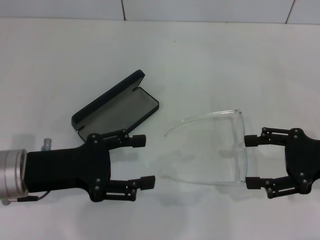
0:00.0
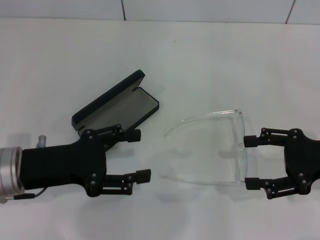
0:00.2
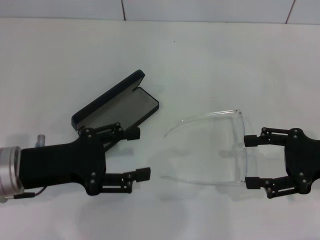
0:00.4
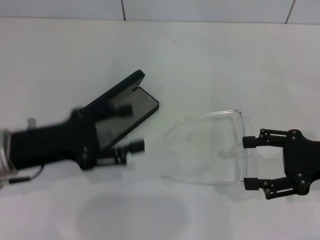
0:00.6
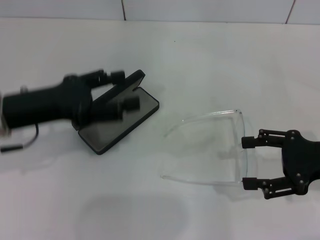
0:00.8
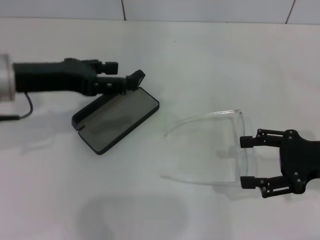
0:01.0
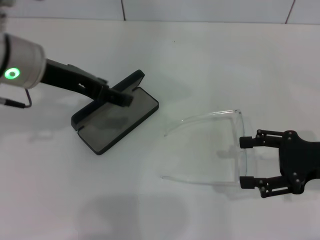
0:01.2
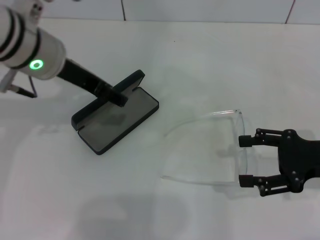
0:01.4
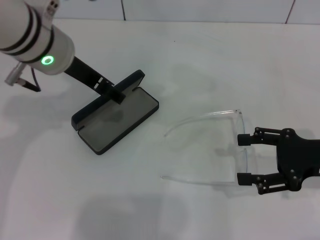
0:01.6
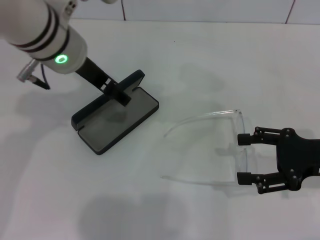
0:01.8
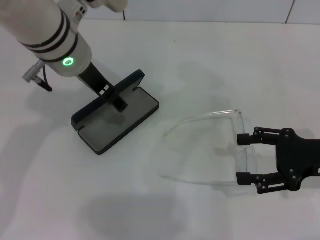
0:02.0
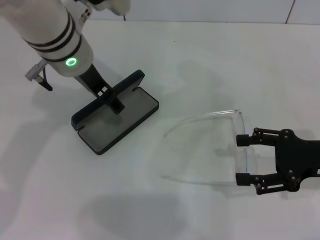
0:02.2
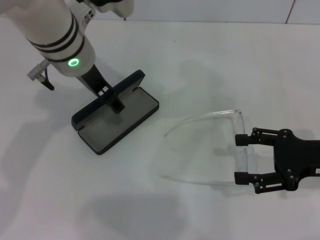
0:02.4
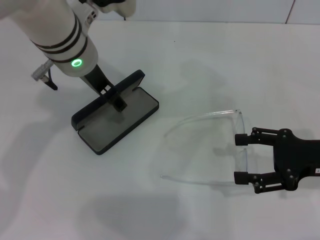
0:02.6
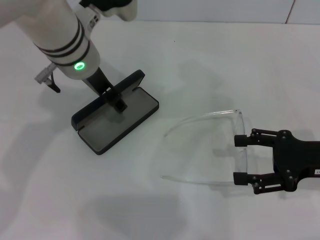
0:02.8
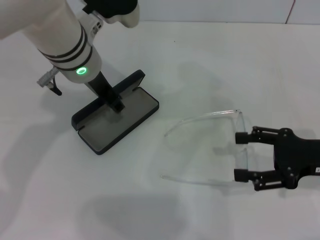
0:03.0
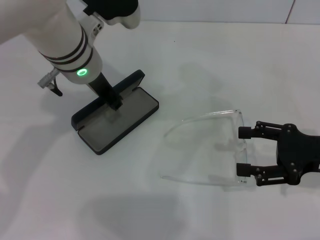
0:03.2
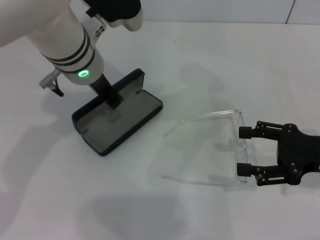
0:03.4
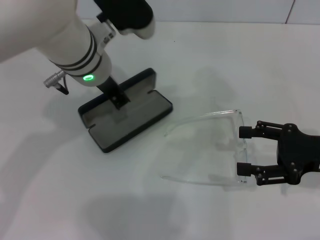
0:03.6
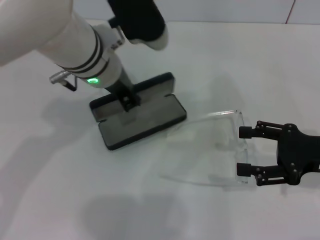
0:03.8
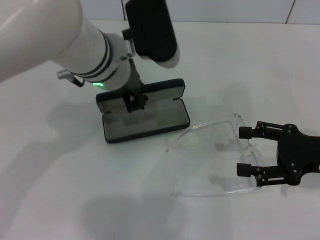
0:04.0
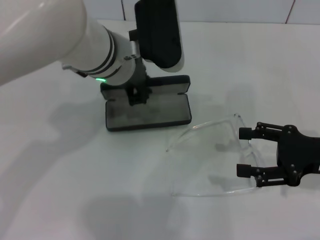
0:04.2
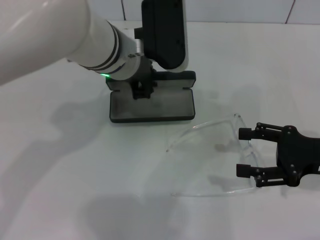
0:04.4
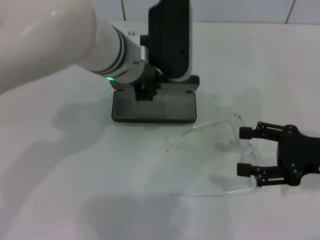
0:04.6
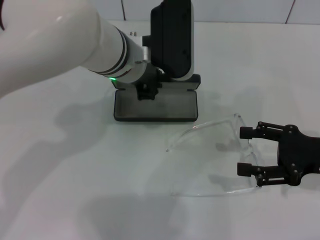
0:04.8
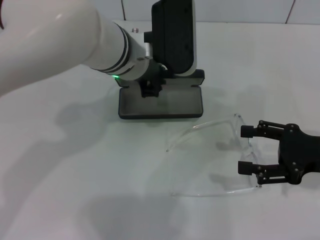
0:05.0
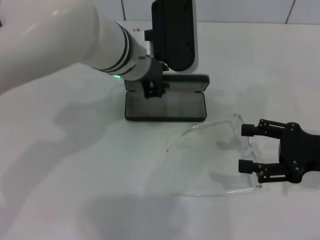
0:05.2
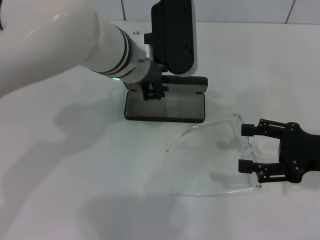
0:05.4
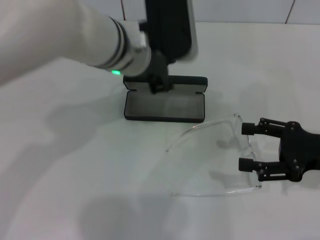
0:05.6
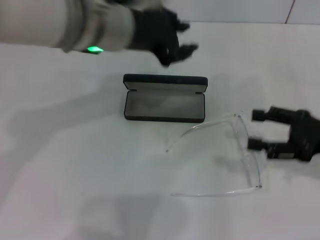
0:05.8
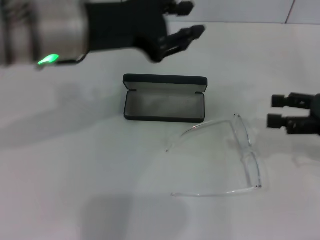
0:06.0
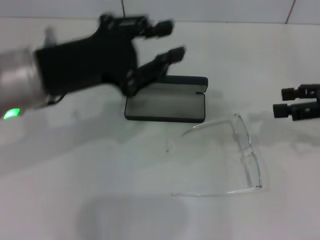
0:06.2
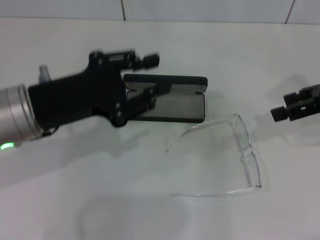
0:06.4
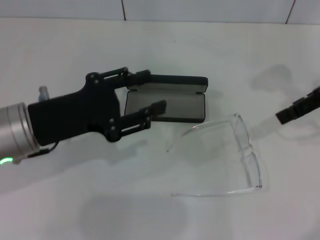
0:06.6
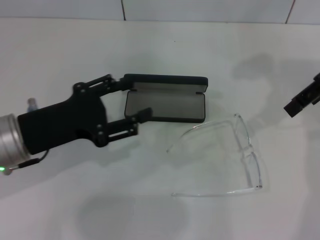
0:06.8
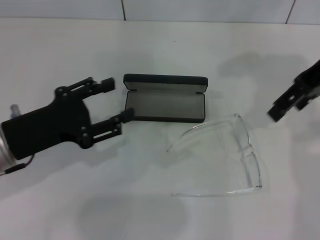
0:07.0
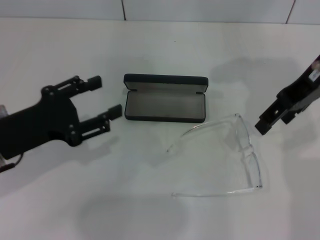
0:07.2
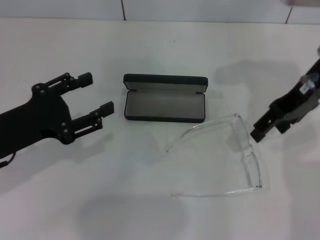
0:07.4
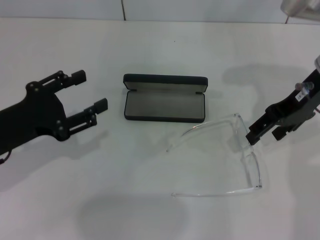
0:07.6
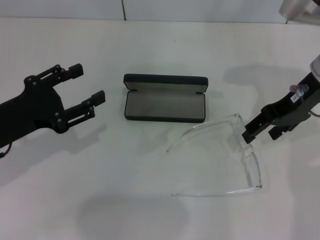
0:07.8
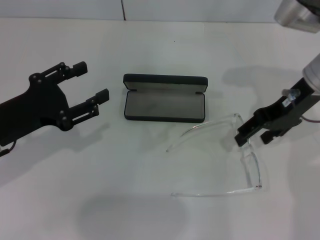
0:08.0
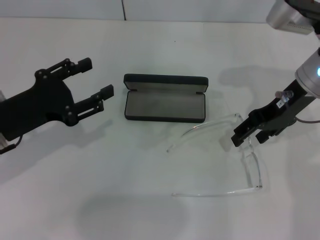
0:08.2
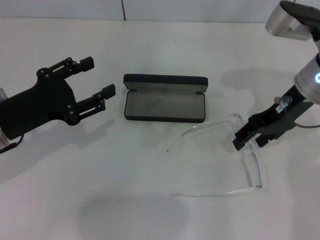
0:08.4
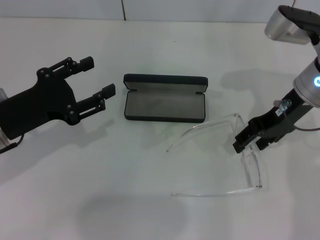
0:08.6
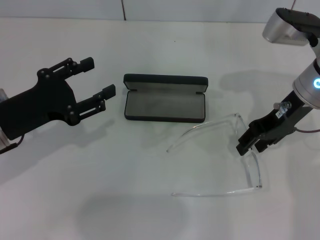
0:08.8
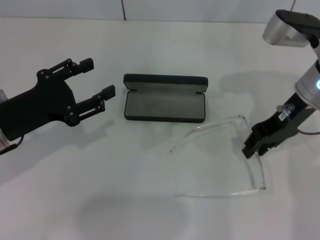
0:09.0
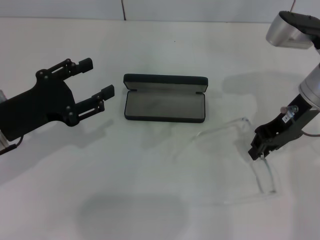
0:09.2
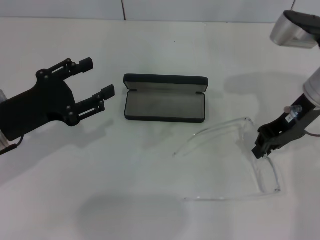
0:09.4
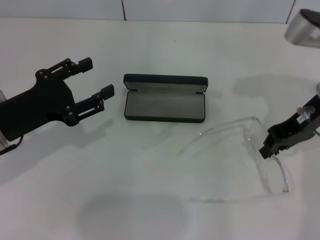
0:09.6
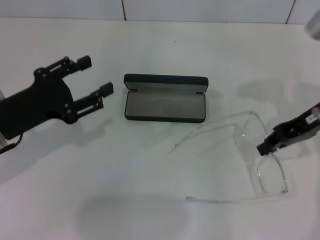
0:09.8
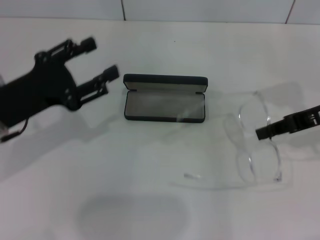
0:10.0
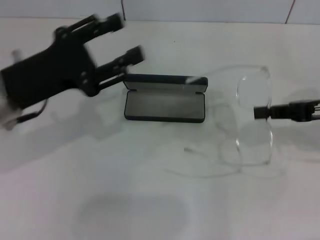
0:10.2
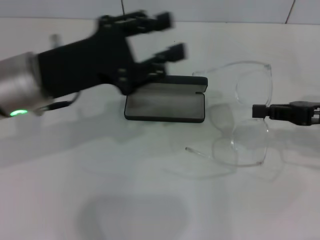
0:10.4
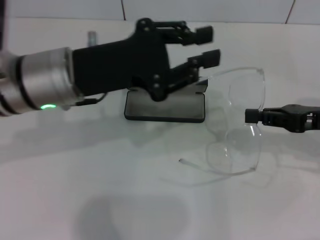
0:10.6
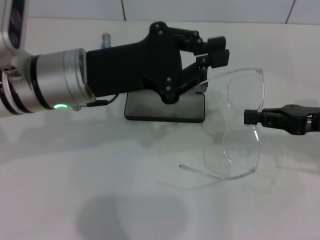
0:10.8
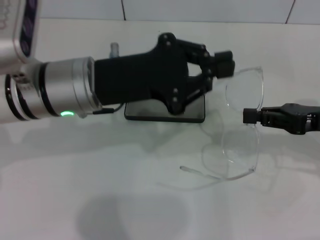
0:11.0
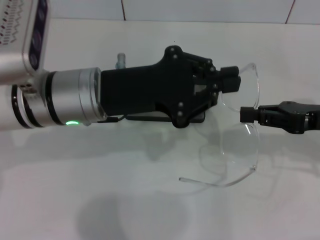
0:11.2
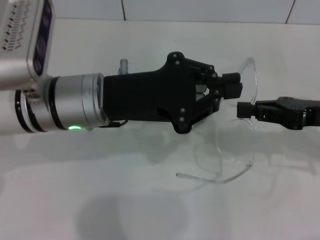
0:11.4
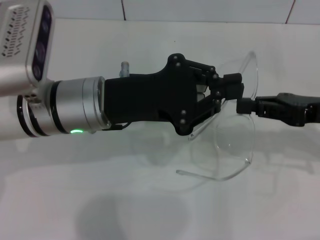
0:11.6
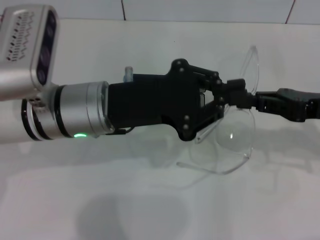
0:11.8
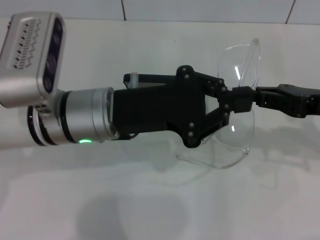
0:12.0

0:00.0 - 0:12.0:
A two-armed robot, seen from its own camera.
Step, 0:00.0 - 0:03.4: Grab the glasses case with your left hand.
Step, 0:03.6 - 0:05.4: Place the glasses case in the center of the table with your left hand.
Step, 0:05.6 - 0:09.0: Grab the eyeglass frame with your right hand.
0:00.0 - 0:01.6: The left gripper is displaced forward, upward and to the right by roughly 20 cm.
0:01.6 - 0:03.0: The left gripper changes place by roughly 5 cm.
0:03.0 - 0:04.4: The left gripper closes.
0:04.4 - 0:06.0: The left gripper moves to the left and upward, some 10 cm, while the right gripper moves approximately 5 cm.
0:06.0 - 0:07.6: The right gripper is displaced to the left, forward and upward by some 15 cm, while the left gripper heads to the left, downward and backward, covering about 20 cm, and opens its fingers.
0:07.6 - 0:09.0: The grippers move only a little.
0:09.0 - 0:10.4: The left gripper heads to the right and upward, covering roughly 10 cm. Meanwhile the right gripper is displaced to the right and backward by some 10 cm, and closes its fingers.
0:10.4 - 0:12.0: The left gripper shifts roughly 5 cm to the right, and closes its fingers.

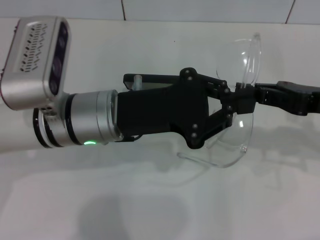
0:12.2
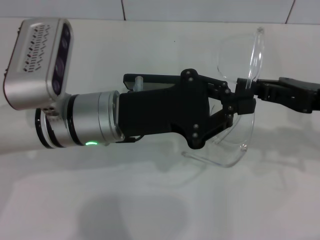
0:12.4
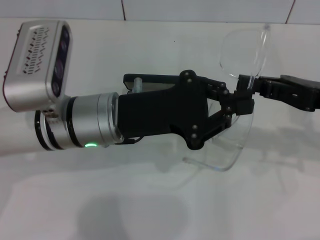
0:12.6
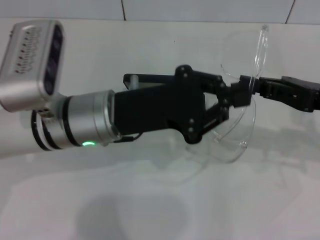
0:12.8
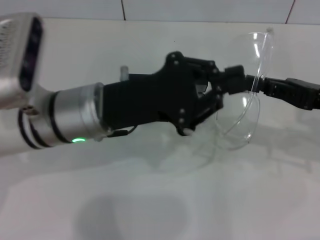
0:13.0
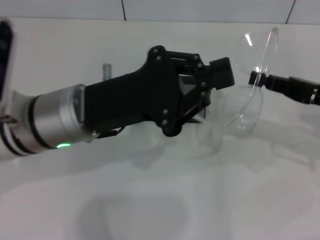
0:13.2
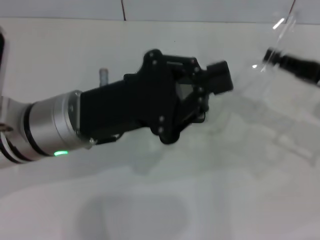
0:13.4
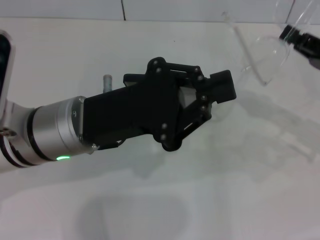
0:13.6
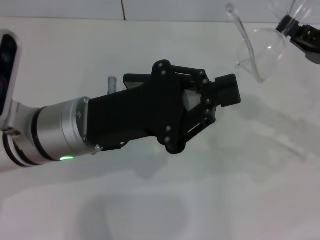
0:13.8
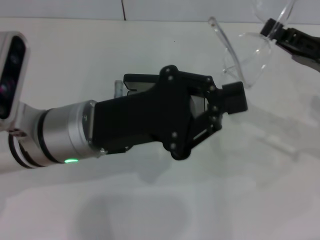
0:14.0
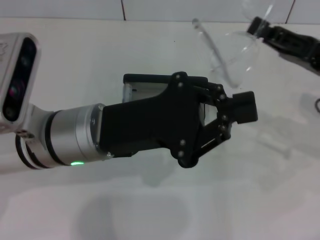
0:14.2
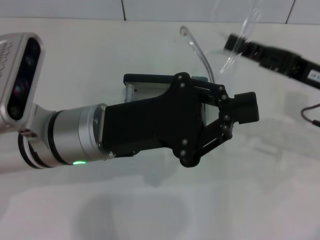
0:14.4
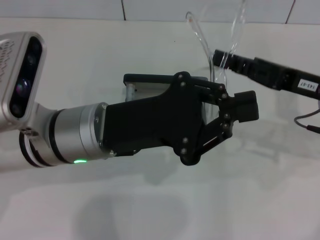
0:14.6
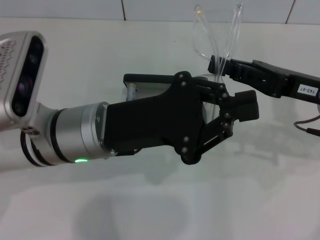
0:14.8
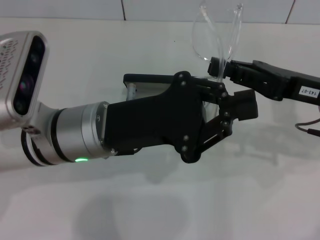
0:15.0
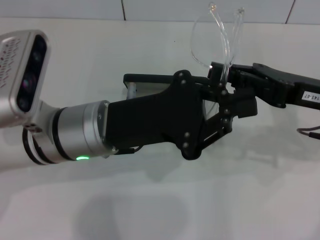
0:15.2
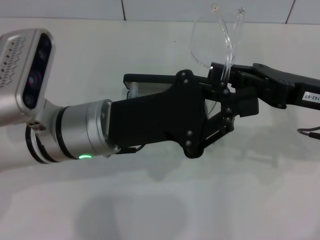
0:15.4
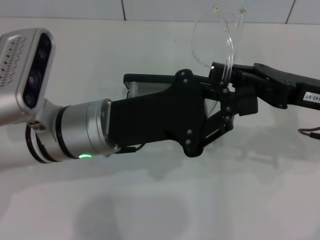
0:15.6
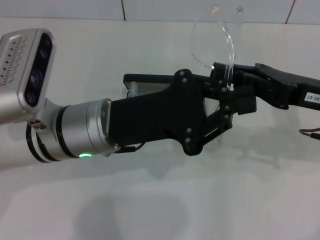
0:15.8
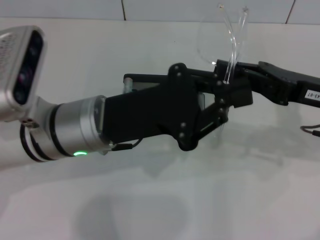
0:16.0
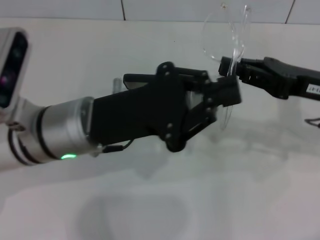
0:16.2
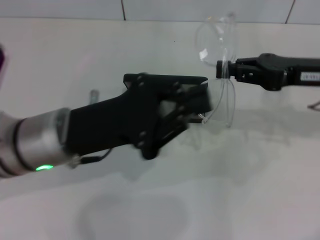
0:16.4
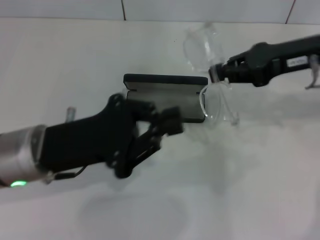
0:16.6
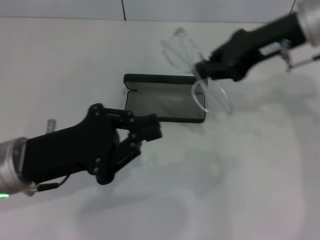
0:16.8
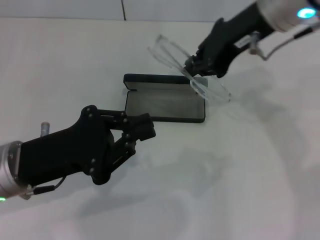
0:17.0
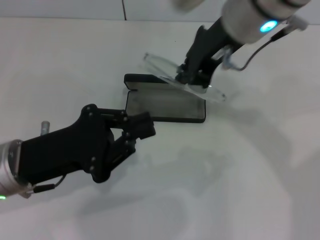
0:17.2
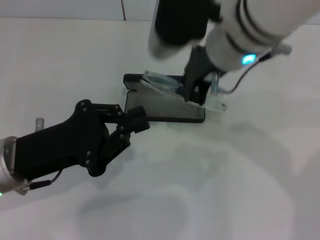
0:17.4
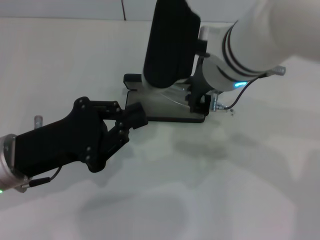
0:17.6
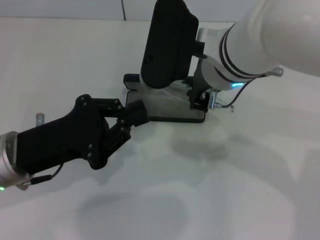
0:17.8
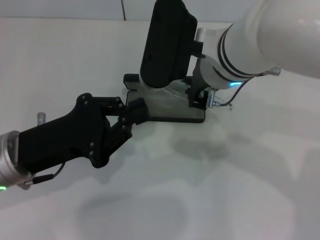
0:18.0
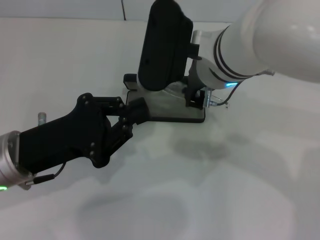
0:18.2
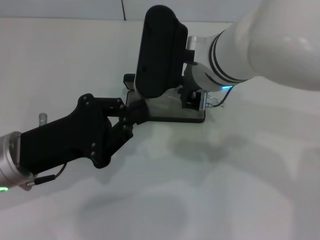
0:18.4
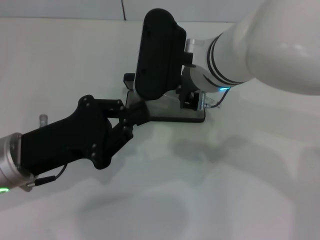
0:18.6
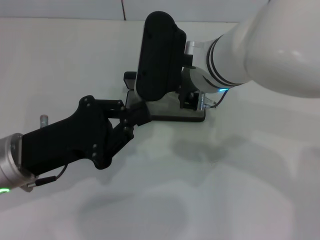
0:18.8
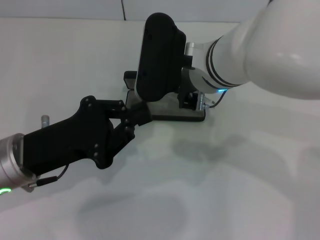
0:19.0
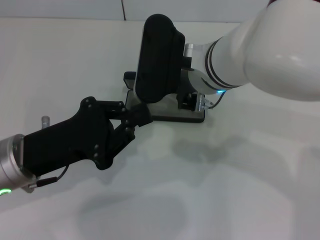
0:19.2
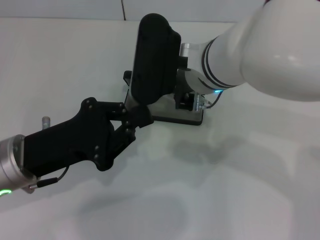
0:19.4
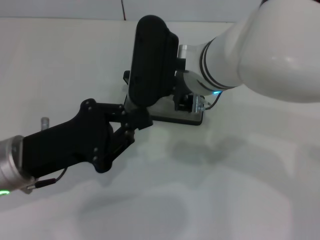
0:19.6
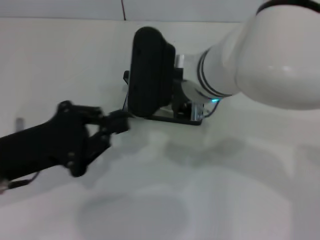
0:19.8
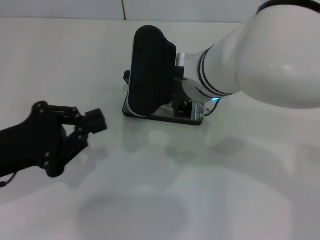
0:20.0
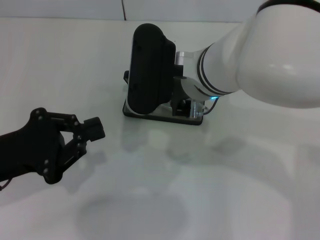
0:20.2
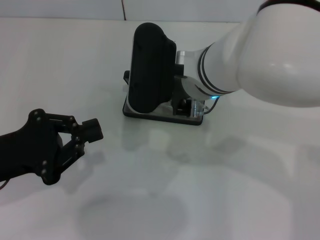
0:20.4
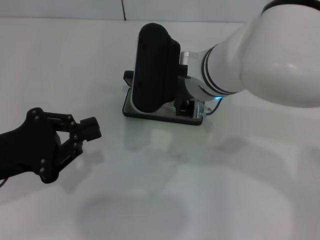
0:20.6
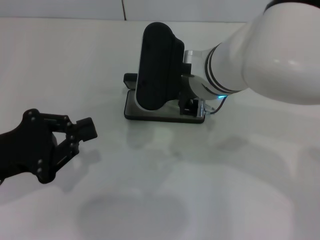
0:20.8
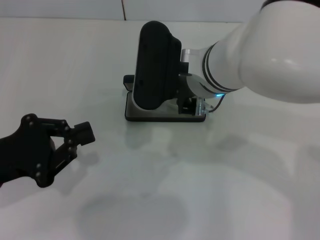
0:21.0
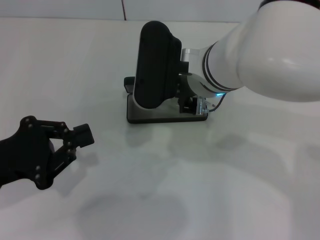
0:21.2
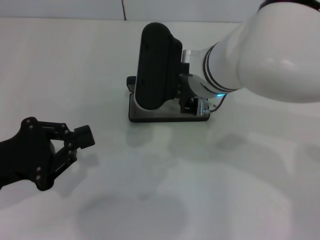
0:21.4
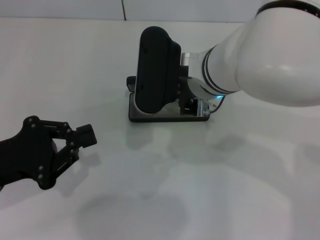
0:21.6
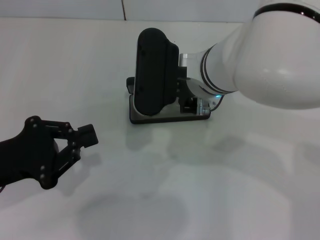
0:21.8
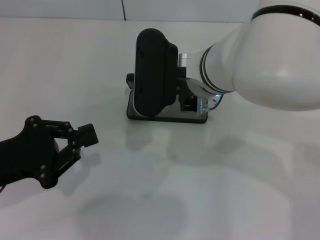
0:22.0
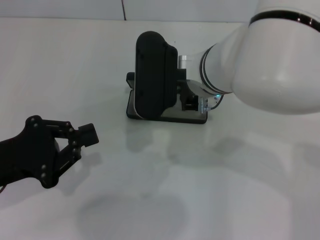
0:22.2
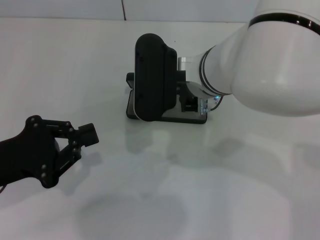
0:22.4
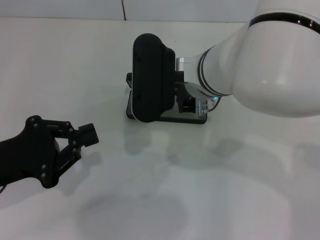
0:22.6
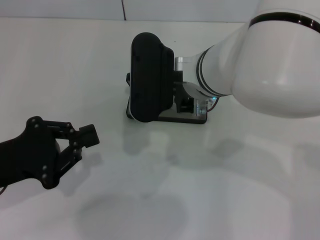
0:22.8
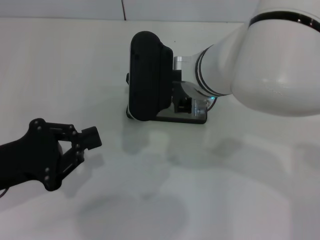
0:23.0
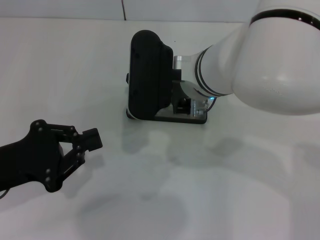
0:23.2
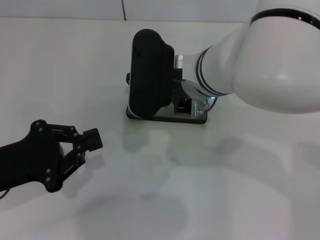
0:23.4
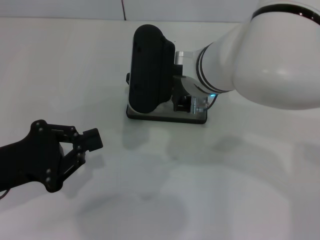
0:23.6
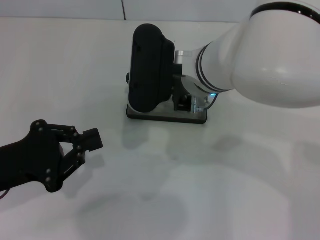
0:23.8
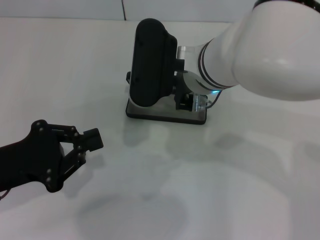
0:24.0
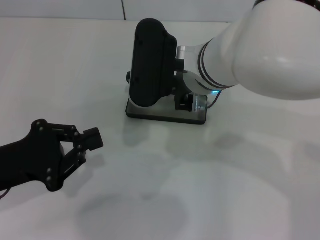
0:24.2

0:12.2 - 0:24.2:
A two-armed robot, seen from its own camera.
Step, 0:12.2 - 0:16.0: Fold the frame with your left hand.
0:13.8 - 0:15.2: The right gripper goes some 5 cm to the left.
0:15.2 - 0:16.6: The left gripper shifts roughly 5 cm to the left. The right gripper shifts some 10 cm upward and forward.
0:16.6 - 0:18.2: The right gripper heads to the left, covering roughly 20 cm.
0:19.8 - 0:24.2: There are only small adjustments of the grippers.
